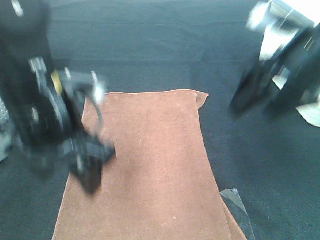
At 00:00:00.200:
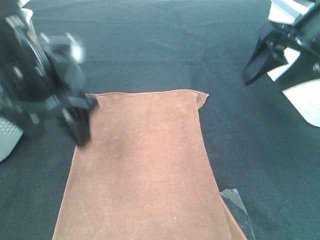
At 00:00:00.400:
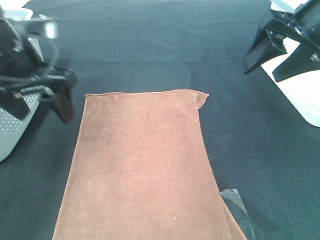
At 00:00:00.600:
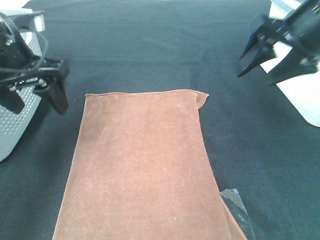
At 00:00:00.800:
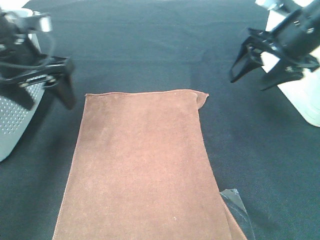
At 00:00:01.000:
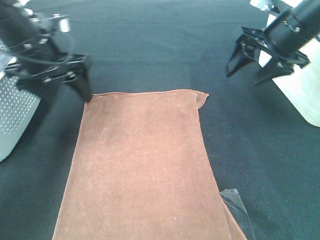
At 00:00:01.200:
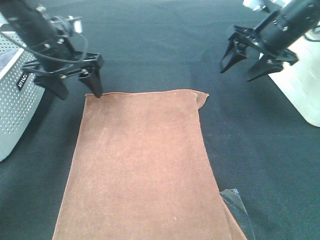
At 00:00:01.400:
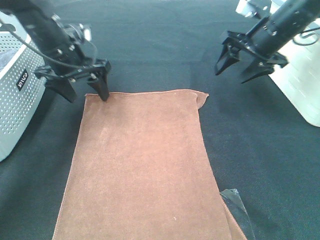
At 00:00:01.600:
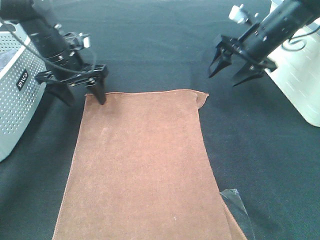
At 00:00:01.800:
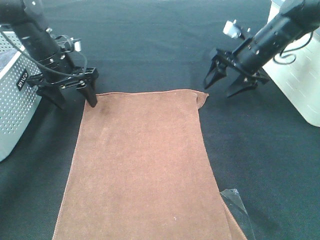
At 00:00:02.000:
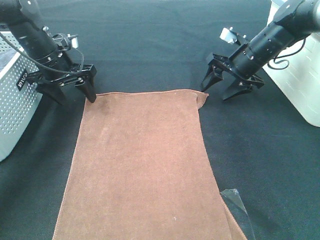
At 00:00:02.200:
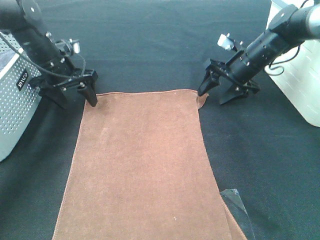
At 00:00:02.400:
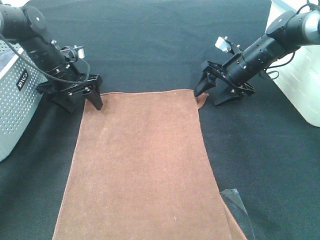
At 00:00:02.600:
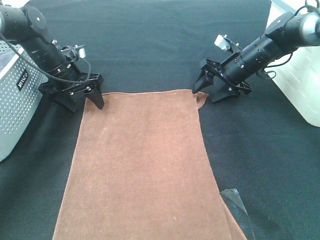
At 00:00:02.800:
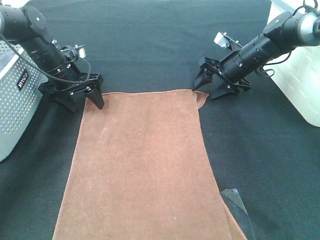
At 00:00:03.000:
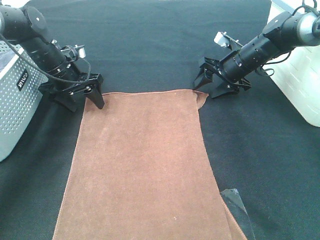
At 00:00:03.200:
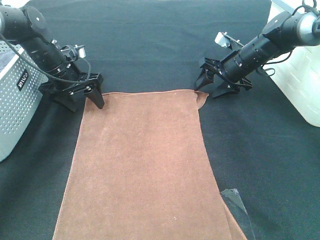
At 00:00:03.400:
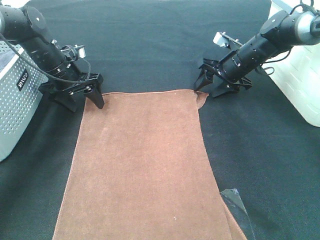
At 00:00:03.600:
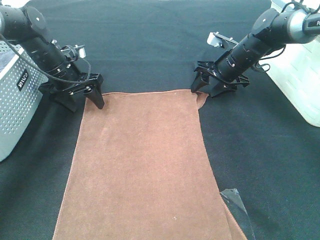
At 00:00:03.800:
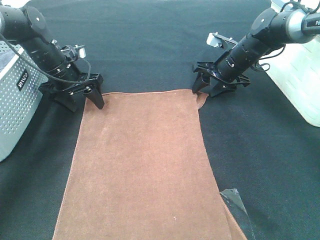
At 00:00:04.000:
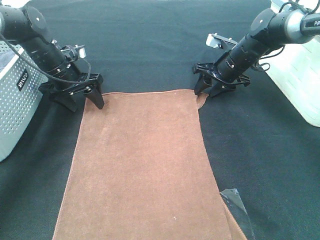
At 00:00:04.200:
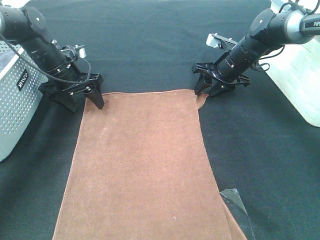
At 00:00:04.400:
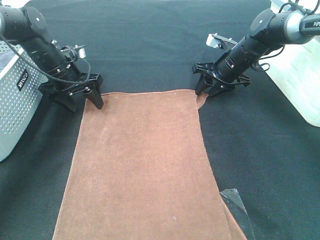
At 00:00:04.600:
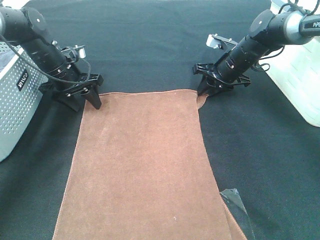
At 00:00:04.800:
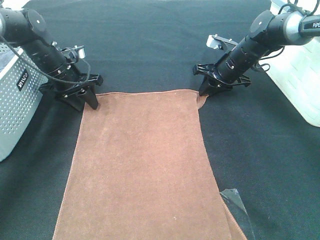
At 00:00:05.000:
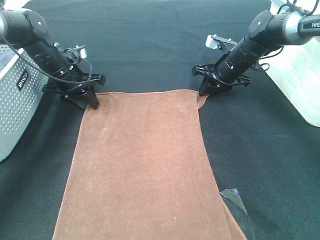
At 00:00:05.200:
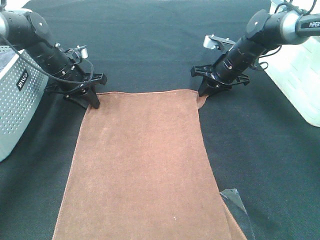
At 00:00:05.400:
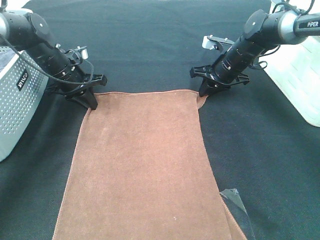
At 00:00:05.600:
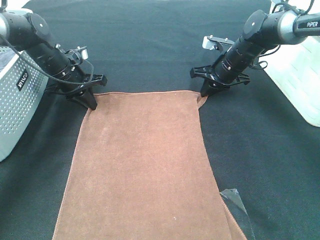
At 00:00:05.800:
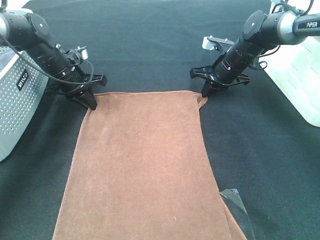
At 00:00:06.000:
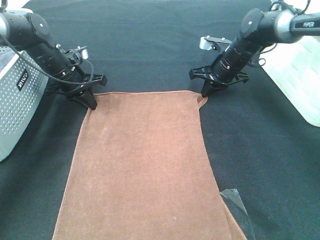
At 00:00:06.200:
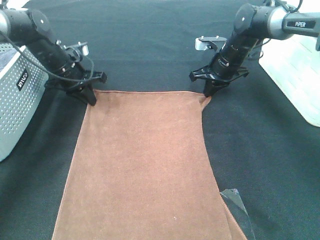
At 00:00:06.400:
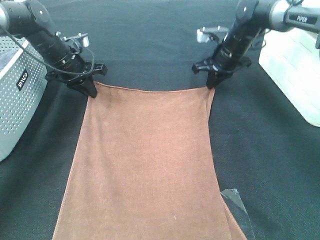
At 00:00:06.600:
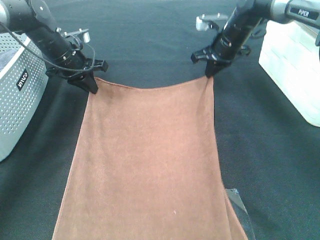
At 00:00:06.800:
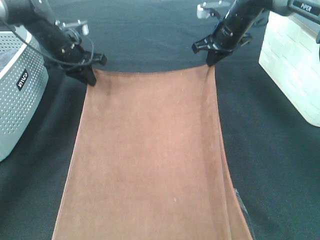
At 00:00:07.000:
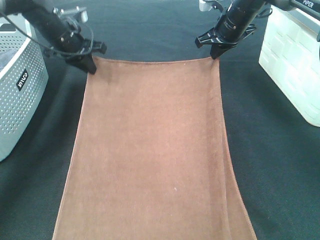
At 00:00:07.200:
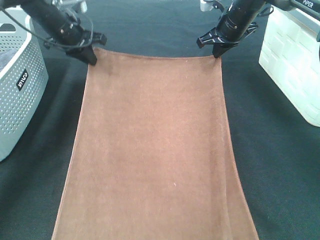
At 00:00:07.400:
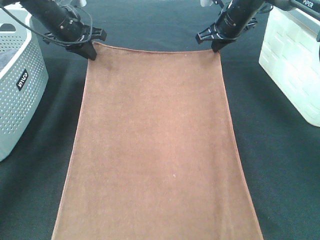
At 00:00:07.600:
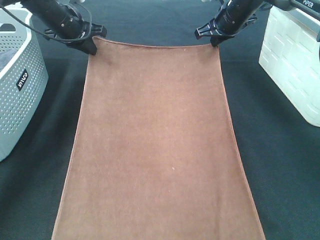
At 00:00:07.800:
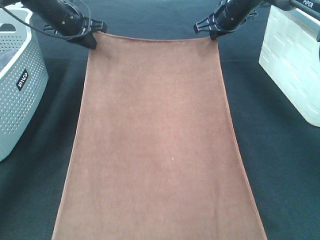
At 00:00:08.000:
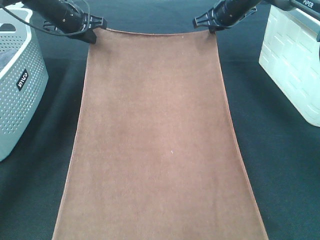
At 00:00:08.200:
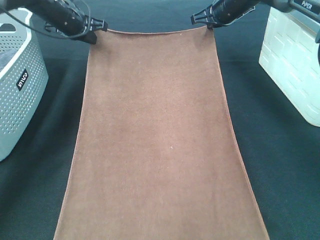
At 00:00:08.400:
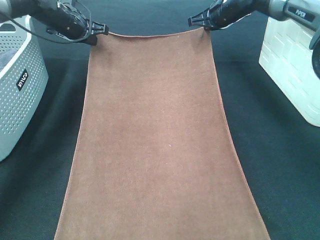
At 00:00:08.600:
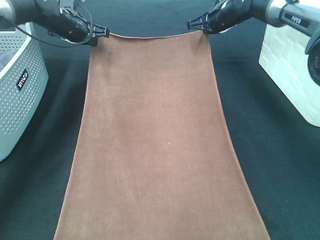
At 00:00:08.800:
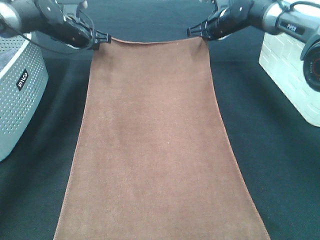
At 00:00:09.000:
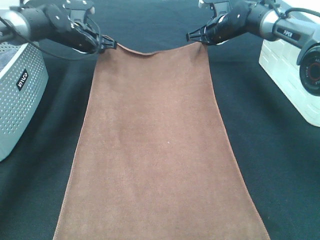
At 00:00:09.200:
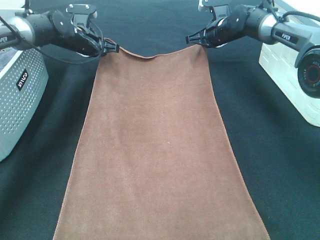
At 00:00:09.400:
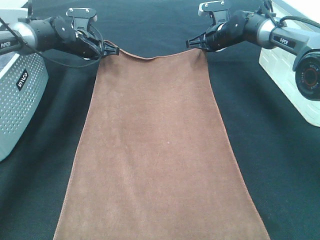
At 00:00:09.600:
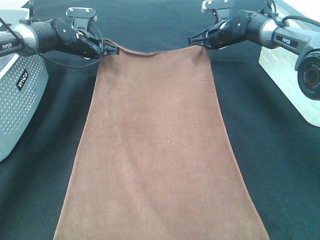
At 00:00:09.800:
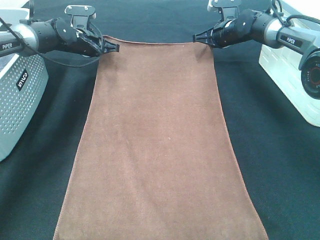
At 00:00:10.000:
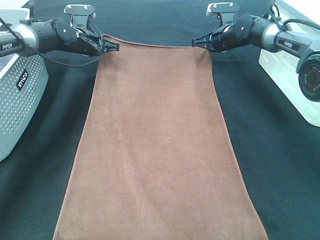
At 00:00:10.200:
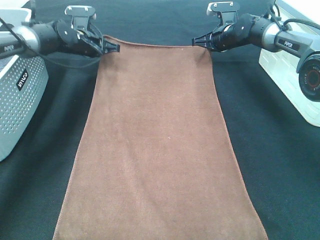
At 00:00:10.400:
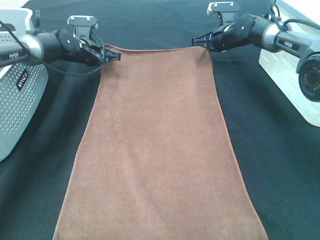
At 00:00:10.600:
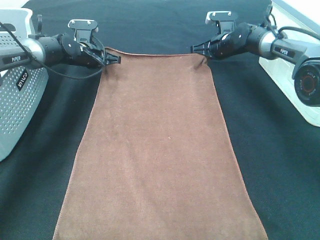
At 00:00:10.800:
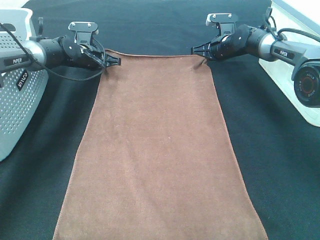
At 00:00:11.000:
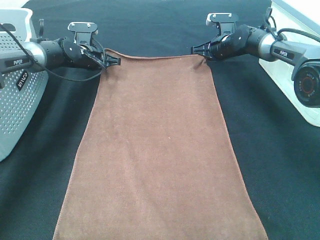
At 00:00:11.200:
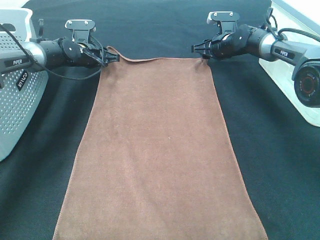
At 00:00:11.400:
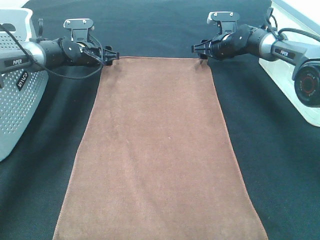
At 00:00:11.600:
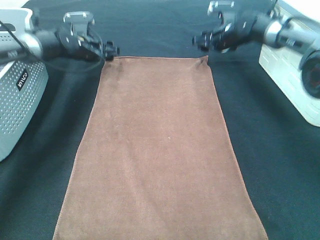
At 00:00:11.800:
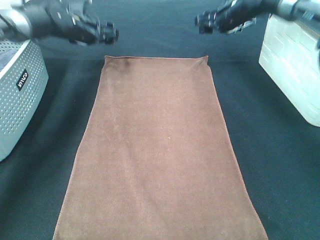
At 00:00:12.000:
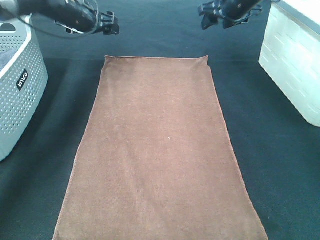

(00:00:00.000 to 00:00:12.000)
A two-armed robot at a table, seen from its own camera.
Task of the whole recording: Remove the towel and place it.
Step, 00:00:00.000 - 00:00:03.800: Left hand:adjust the brown towel.
Step, 00:00:00.000 - 00:00:03.800: Right hand:adjust the brown towel.
00:00:00.000 - 00:00:01.600: The right gripper travels forward and downward by approximately 20 cm; the left gripper travels forward by roughly 20 cm.
00:00:01.600 - 00:00:03.000: The left gripper shifts by roughly 5 cm. Meanwhile the right gripper moves downward, some 10 cm.
00:00:03.000 - 00:00:04.400: The grippers stay close to where they were, moving slightly.
00:00:04.400 - 00:00:06.000: The right gripper closes its fingers. Meanwhile the left gripper closes up.
00:00:06.000 - 00:00:07.600: Both grippers travel together upward and forward, roughly 10 cm.
00:00:07.600 - 00:00:09.000: Both grippers travel together downward, approximately 5 cm.
00:00:09.000 - 00:00:10.400: The grippers make only small movements.
00:00:10.400 - 00:00:12.000: Both grippers travel together upward, about 10 cm. The left gripper opens; the right gripper opens.

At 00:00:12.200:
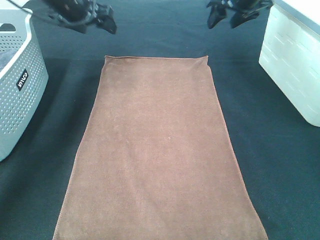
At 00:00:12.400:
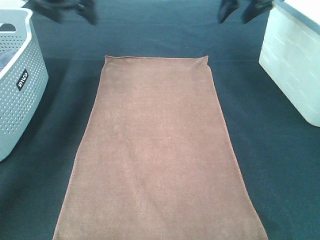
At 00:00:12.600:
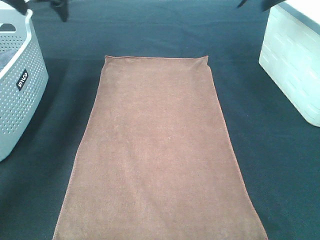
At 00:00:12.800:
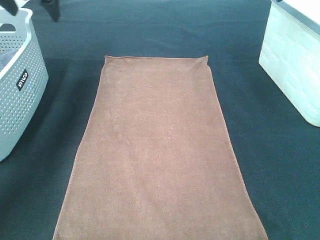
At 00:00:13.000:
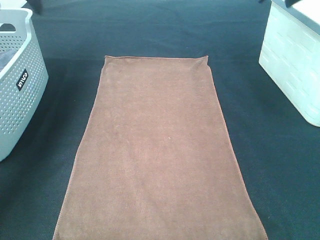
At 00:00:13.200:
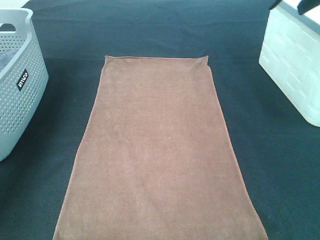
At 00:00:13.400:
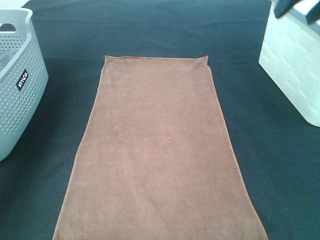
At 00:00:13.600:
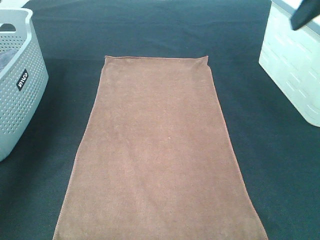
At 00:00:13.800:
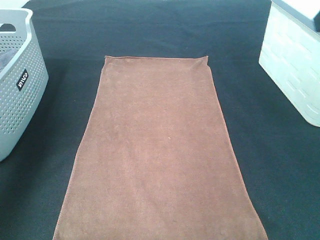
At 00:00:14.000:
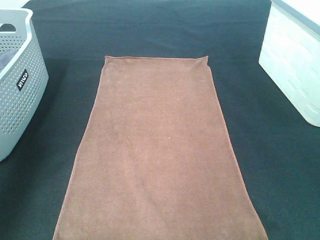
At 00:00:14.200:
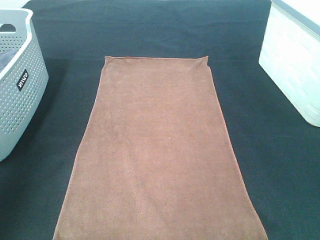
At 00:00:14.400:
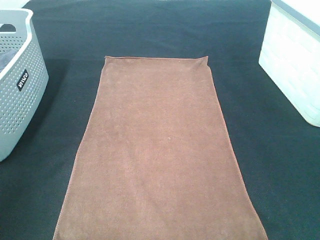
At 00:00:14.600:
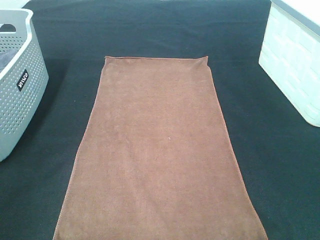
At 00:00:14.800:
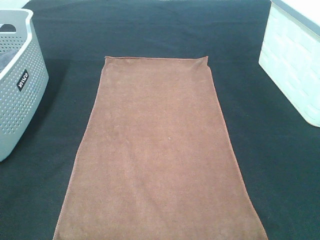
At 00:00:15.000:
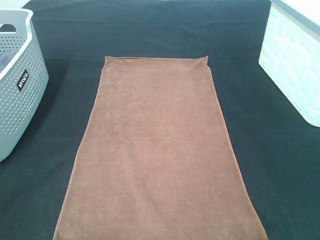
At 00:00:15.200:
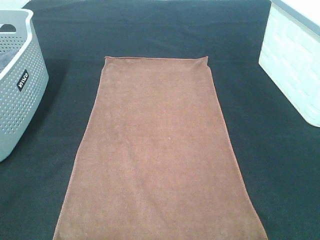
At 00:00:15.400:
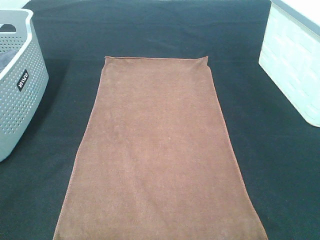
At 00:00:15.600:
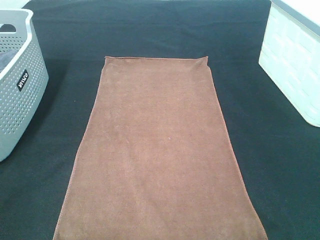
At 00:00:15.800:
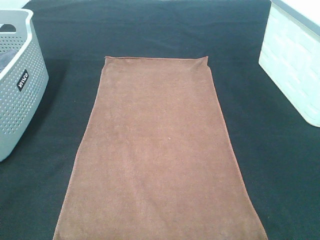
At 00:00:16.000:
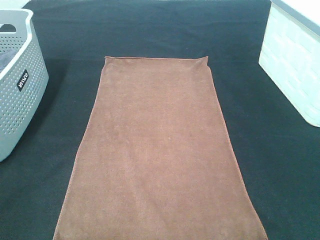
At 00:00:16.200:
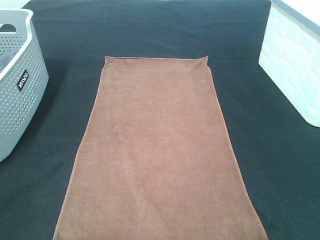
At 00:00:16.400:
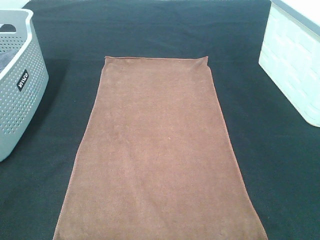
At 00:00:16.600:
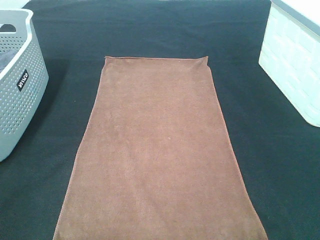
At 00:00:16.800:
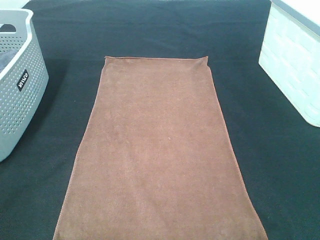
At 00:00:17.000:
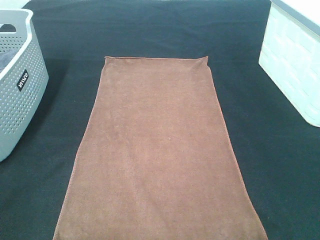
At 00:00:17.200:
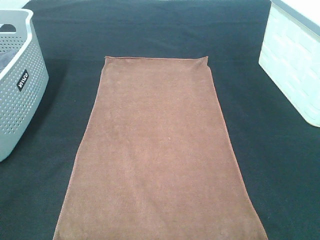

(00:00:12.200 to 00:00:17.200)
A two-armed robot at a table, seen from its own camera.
Task of the whole recording: Remove the towel and place it.
00:00:12.200 - 00:00:13.800: The left gripper shifts roughly 30 cm backward, upward and to the left. Meanwhile the right gripper travels backward by approximately 30 cm.
00:00:13.800 - 00:00:15.600: The left gripper shifts some 30 cm backward. Meanwhile the right gripper is displaced backward and downward by roughly 25 cm.
00:00:15.600 - 00:00:17.200: Neither gripper changes place.
